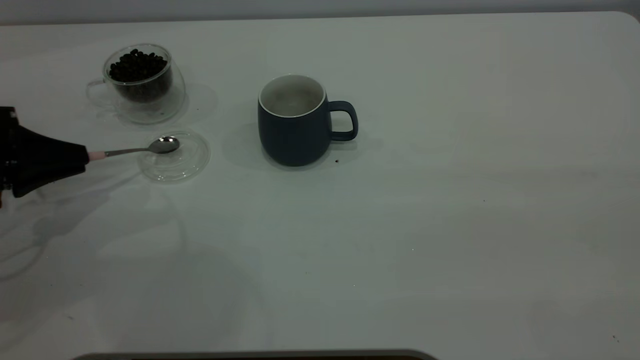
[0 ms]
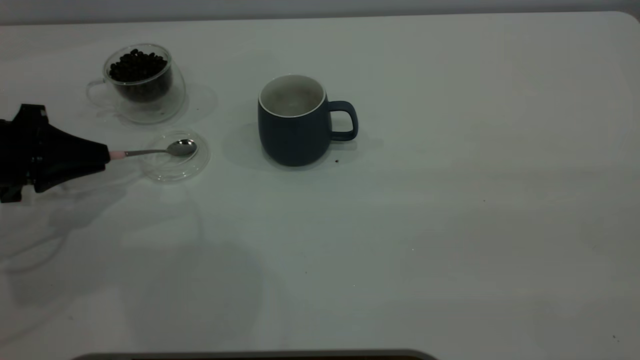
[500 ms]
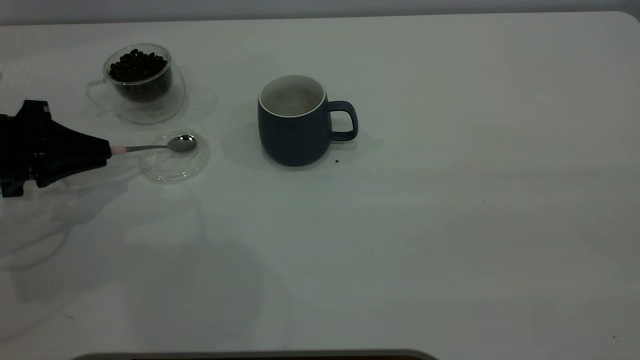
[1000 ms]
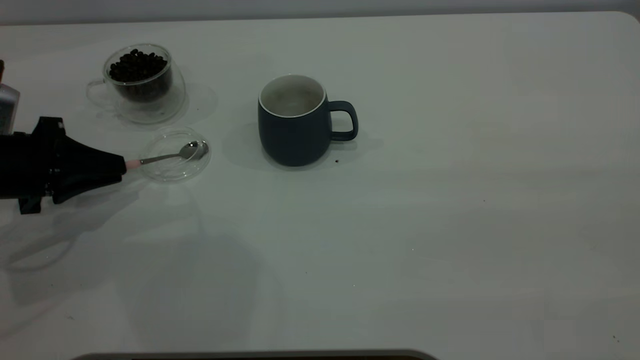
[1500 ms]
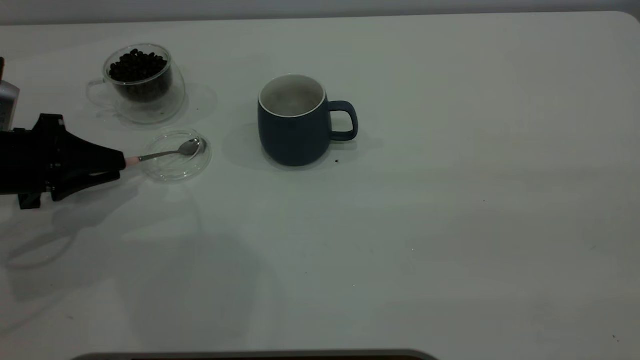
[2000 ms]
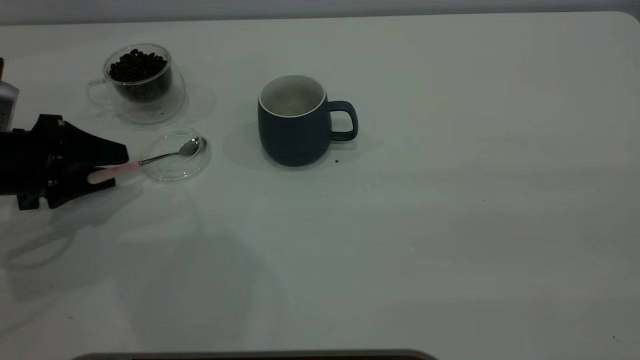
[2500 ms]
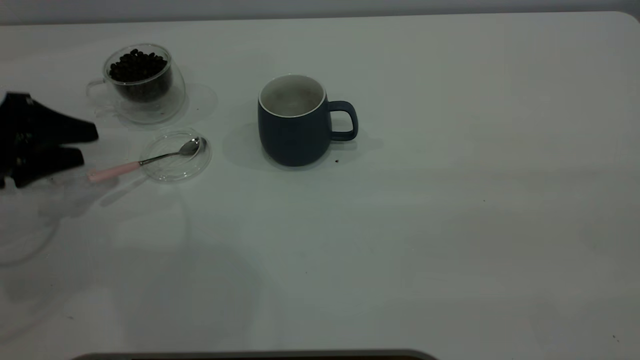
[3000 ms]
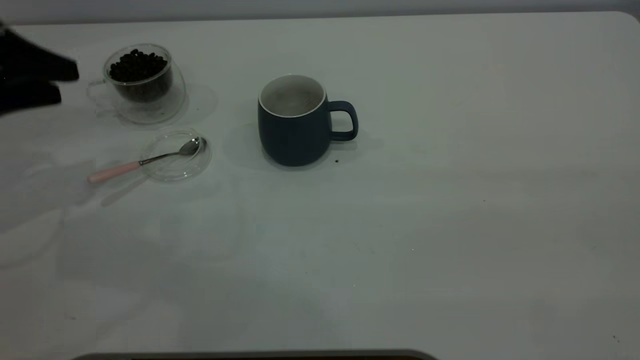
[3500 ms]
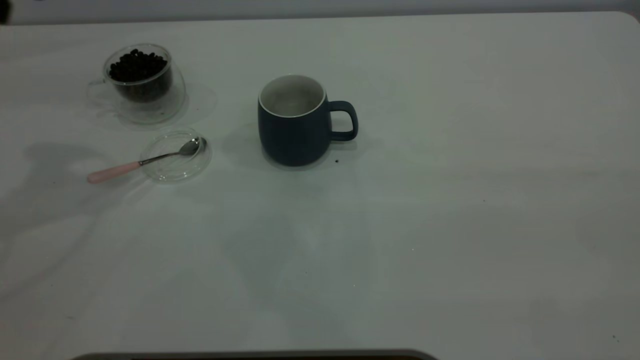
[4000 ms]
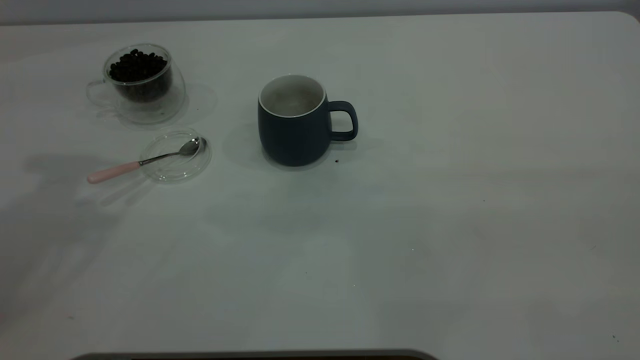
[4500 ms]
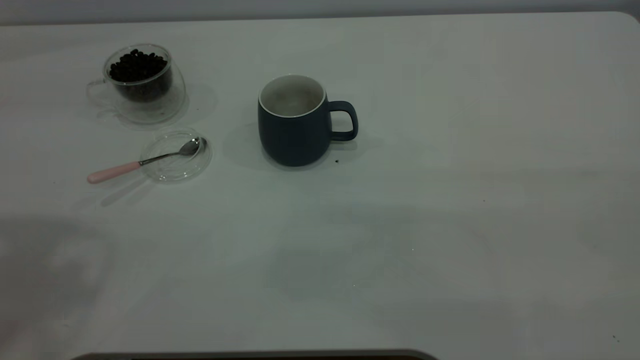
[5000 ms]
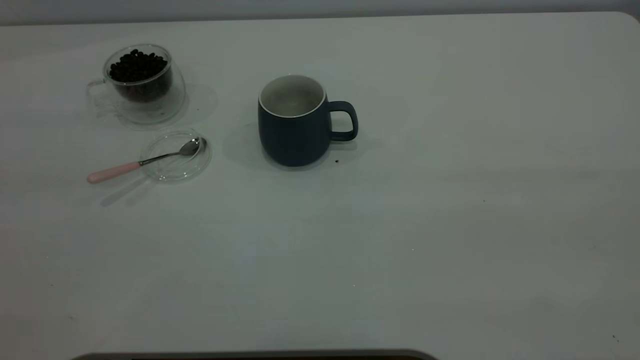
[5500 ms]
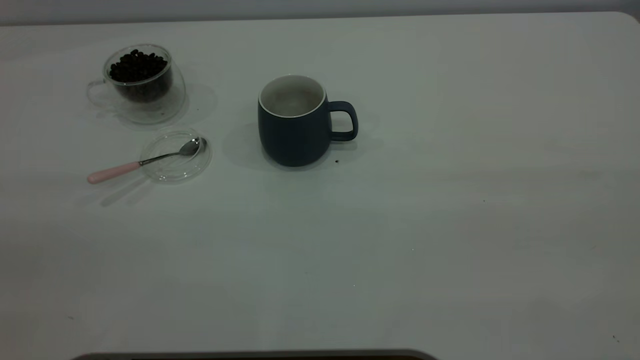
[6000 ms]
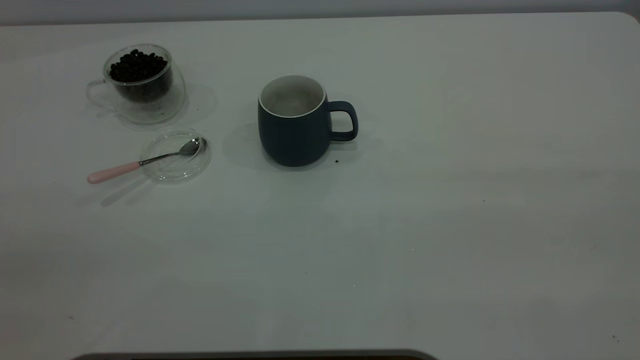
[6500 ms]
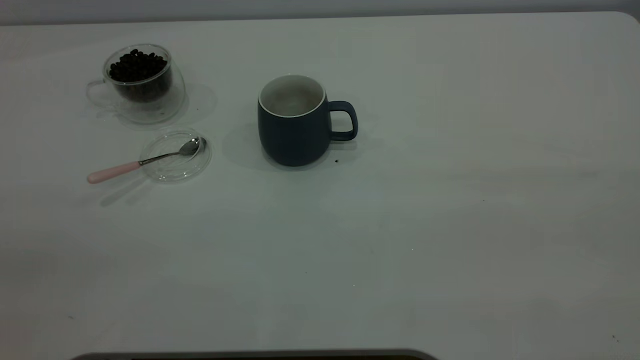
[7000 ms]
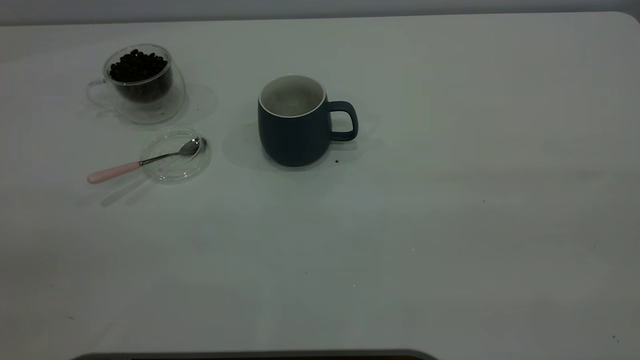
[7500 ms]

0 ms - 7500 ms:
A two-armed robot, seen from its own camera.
Task of the whole recording: the right gripper place the grey cup in the center of the table, the left gripper take the pink spoon from the cup lid and scoop out the coffee beans from the coffee cup and put them into the grey cup, the left gripper put the spoon back into the cup lid.
Step, 0 ms - 3000 ms: Place the spoon back in its original place.
0 ms - 2000 ms: The grippers make only small movements.
2000 ms - 4000 ms: The left gripper heads upward, covering some 25 cm, and opens.
